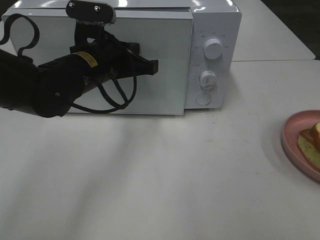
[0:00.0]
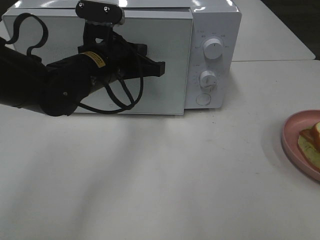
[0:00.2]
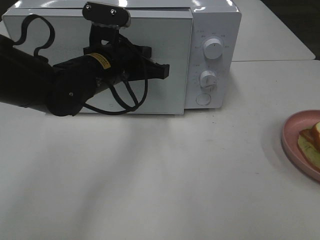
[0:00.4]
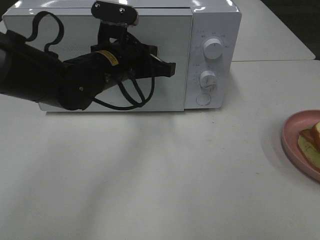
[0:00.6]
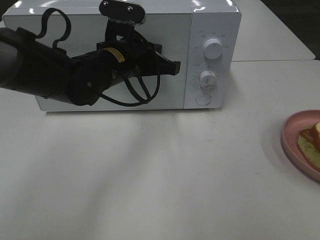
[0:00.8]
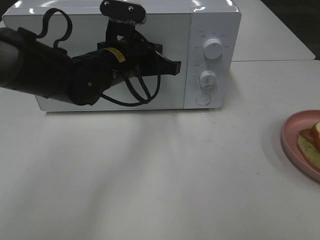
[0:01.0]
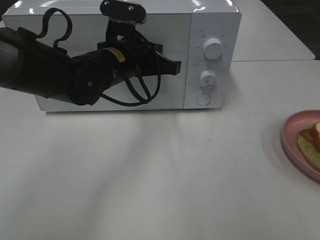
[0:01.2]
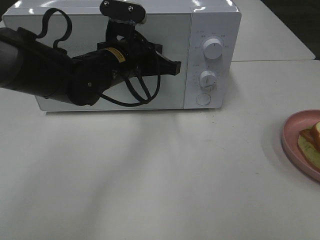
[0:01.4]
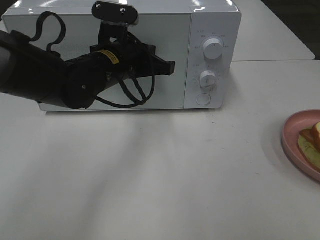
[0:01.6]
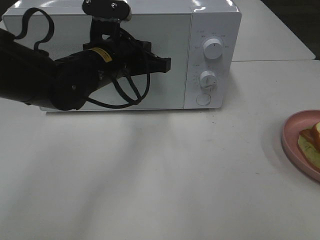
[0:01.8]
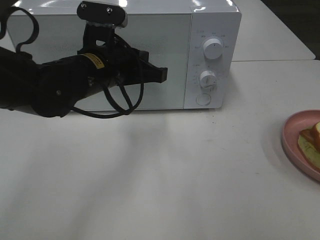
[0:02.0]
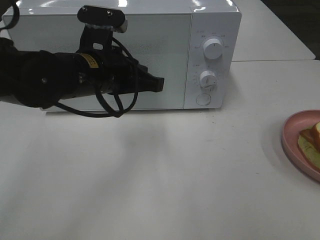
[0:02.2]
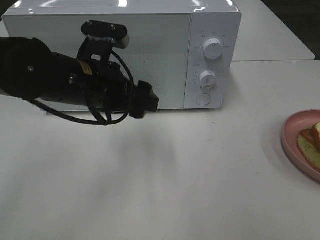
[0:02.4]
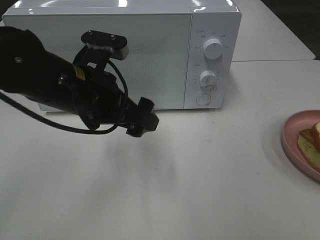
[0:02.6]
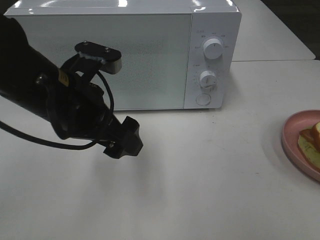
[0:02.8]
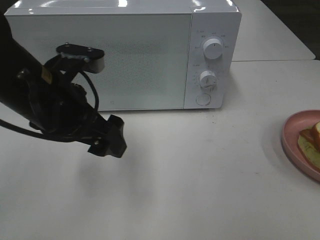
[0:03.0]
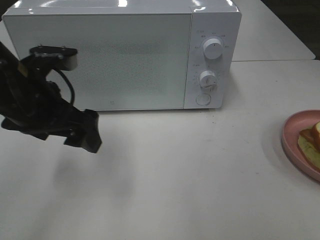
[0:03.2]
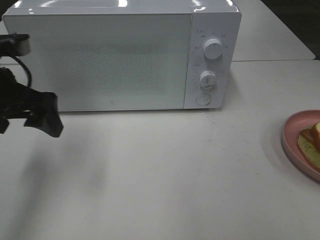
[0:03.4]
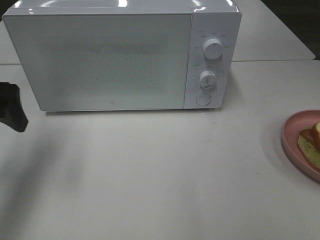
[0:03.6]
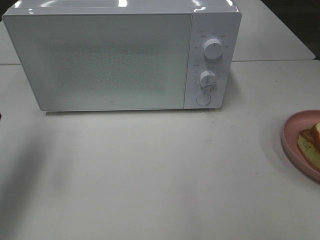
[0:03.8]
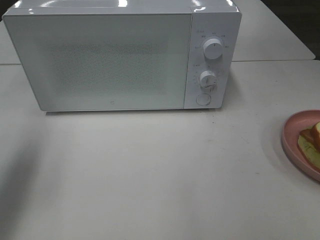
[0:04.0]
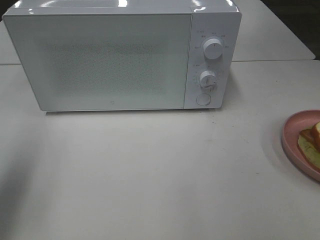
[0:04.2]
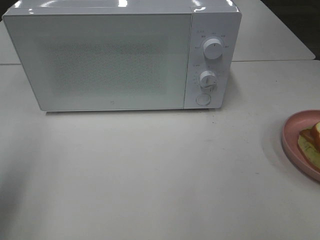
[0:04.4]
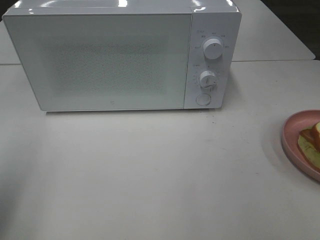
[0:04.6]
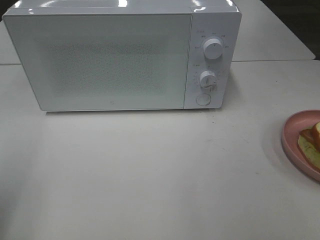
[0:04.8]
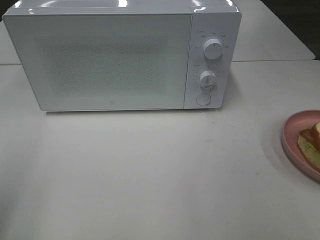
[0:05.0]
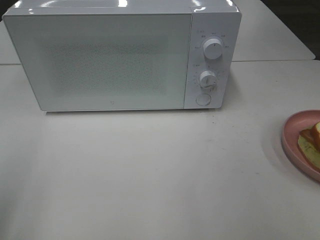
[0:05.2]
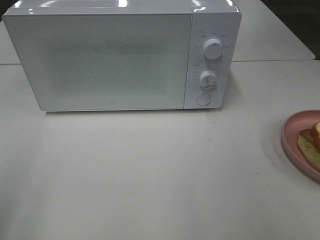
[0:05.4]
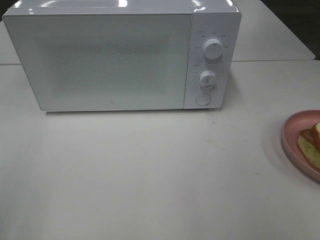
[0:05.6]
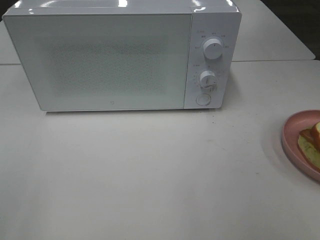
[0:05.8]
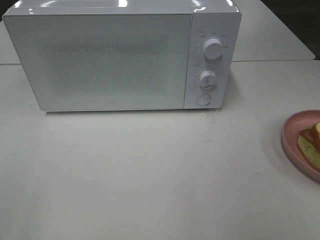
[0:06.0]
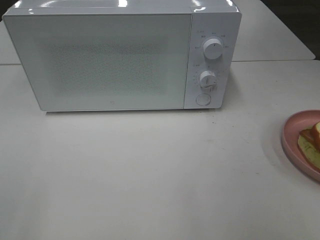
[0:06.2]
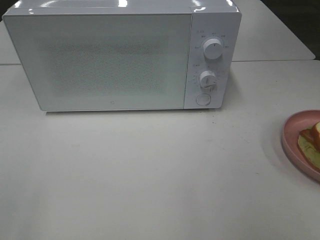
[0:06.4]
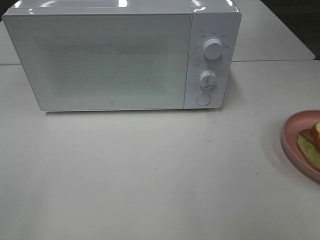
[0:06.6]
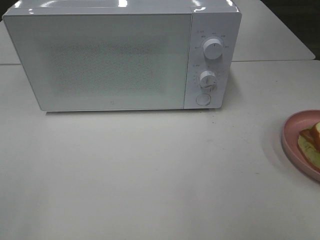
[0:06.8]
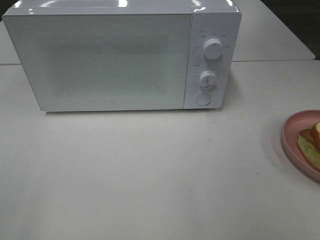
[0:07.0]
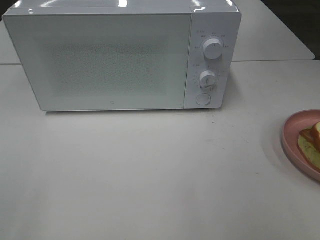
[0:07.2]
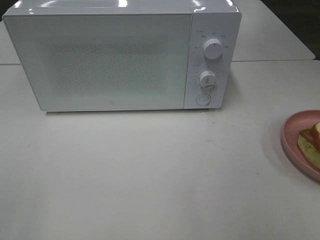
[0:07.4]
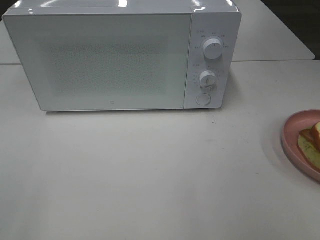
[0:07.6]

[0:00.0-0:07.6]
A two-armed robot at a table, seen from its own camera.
Task of the whole recording: Heat Sandwich.
Step, 0:00.0 to 0:02.0: Left hand: close the microwave door.
0:00.0 to 0:01.6: The grippers move only a little.
0:01.6 to 0:03.0: The left gripper moves backward and to the left, about 10 cm, and opens up.
0:03.0 to 0:04.6: The left gripper moves to the left and backward, some 20 cm.
0:04.6 to 0:06.0: The left gripper goes some 10 cm backward.
0:06.0 to 0:07.6: The two grippers keep their place.

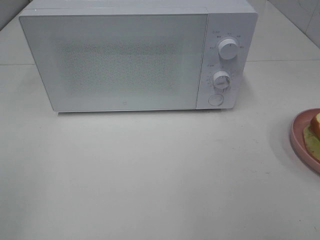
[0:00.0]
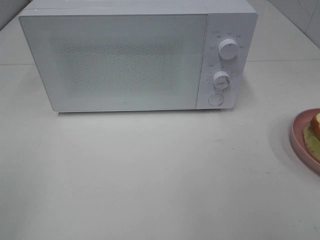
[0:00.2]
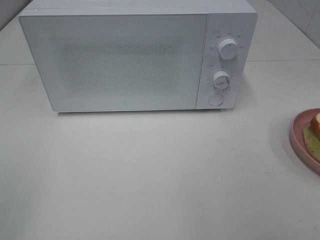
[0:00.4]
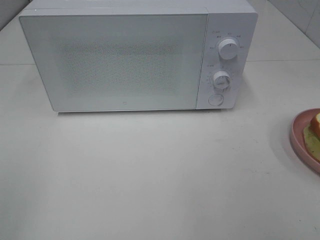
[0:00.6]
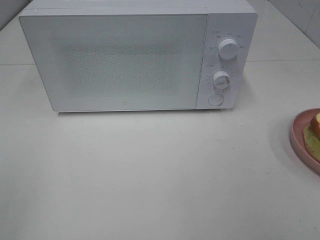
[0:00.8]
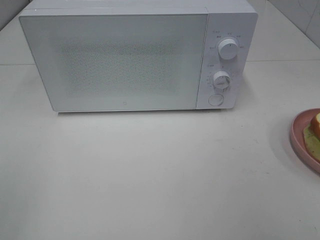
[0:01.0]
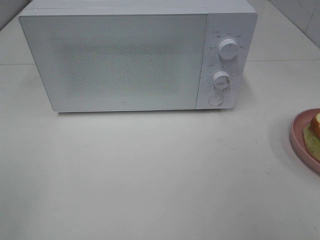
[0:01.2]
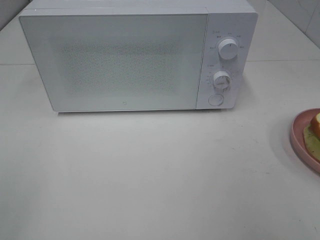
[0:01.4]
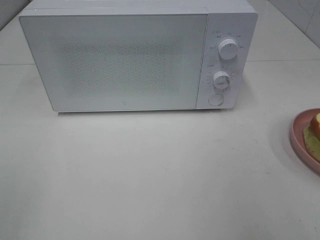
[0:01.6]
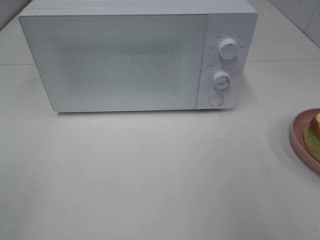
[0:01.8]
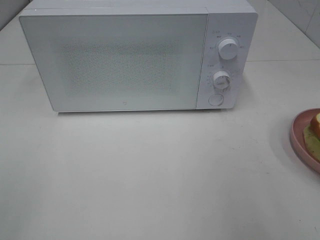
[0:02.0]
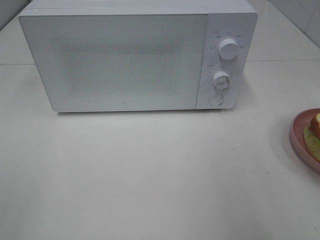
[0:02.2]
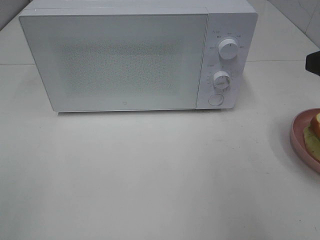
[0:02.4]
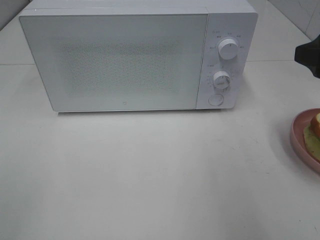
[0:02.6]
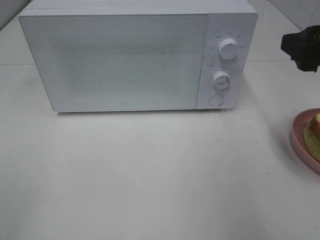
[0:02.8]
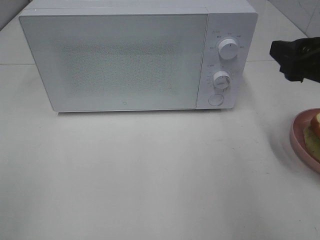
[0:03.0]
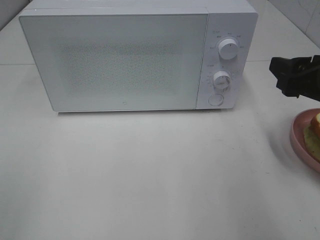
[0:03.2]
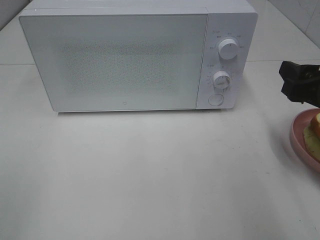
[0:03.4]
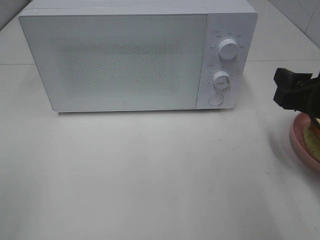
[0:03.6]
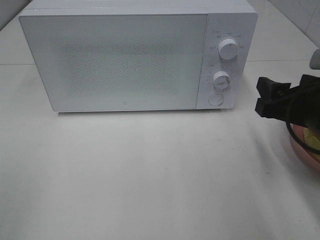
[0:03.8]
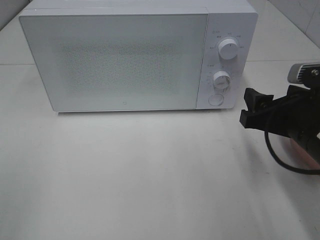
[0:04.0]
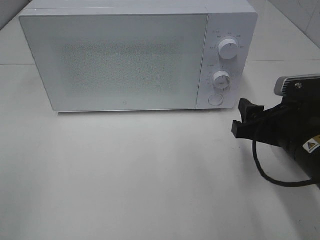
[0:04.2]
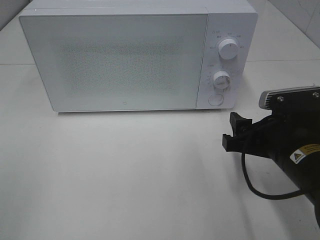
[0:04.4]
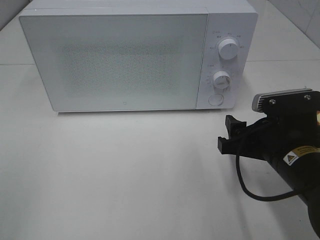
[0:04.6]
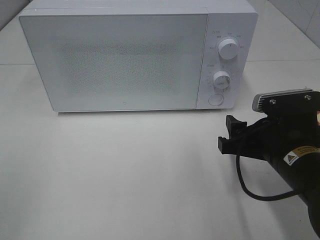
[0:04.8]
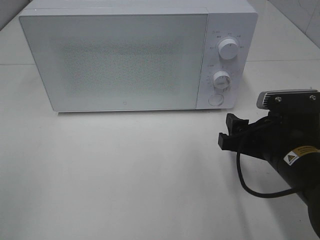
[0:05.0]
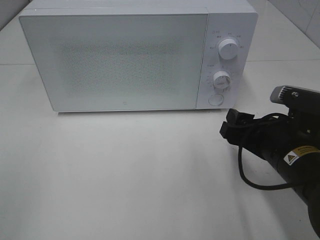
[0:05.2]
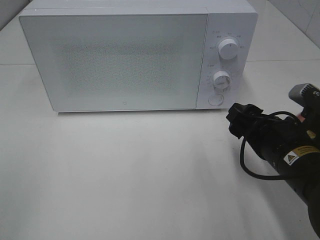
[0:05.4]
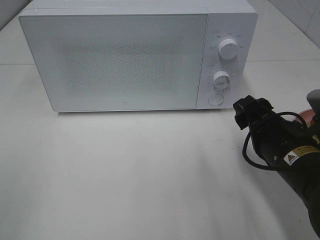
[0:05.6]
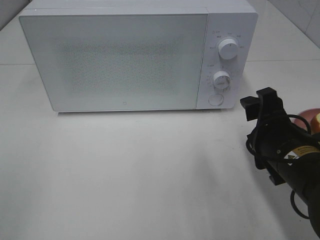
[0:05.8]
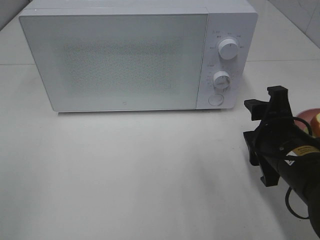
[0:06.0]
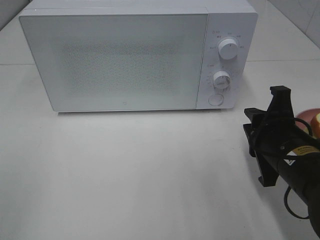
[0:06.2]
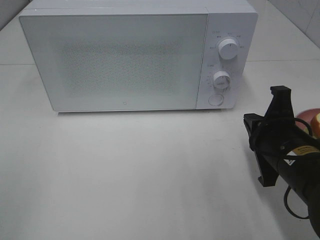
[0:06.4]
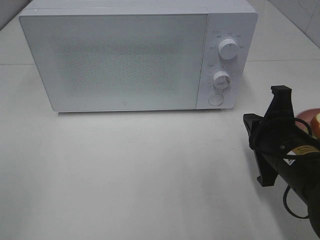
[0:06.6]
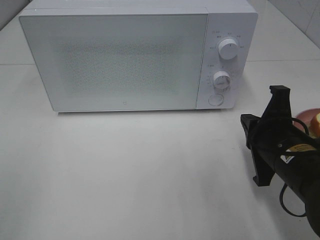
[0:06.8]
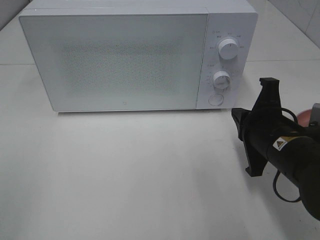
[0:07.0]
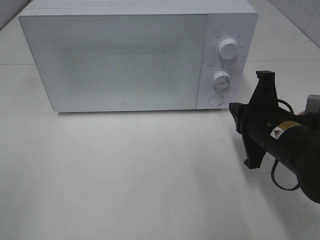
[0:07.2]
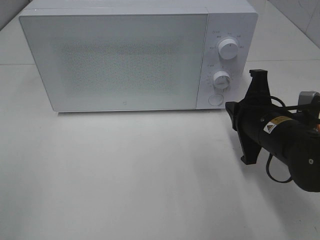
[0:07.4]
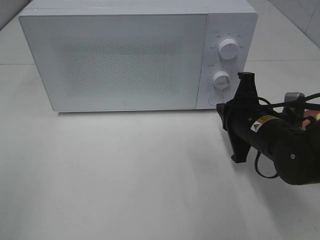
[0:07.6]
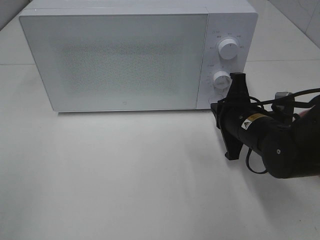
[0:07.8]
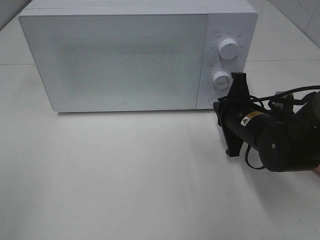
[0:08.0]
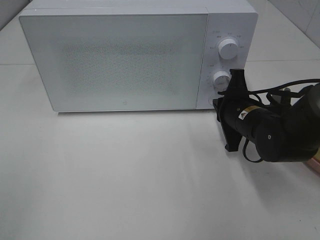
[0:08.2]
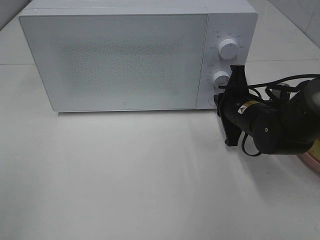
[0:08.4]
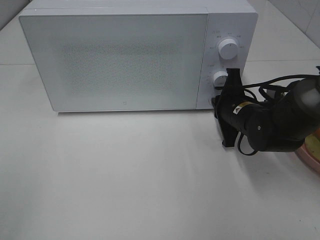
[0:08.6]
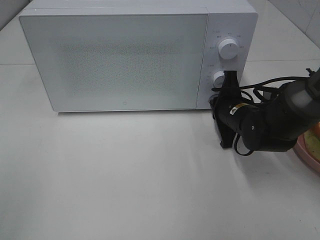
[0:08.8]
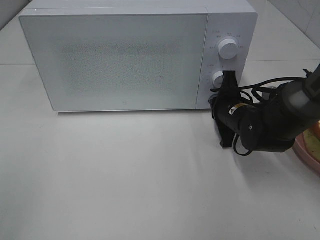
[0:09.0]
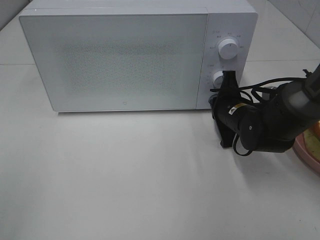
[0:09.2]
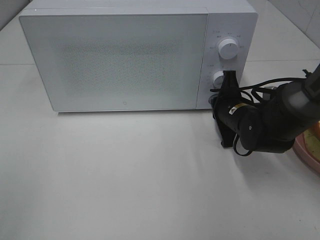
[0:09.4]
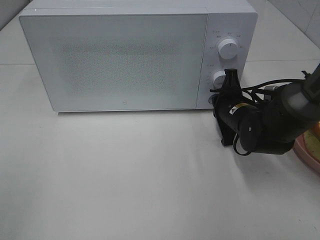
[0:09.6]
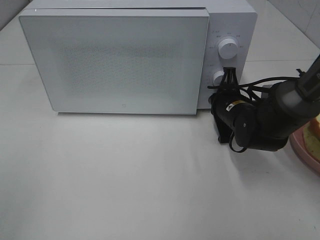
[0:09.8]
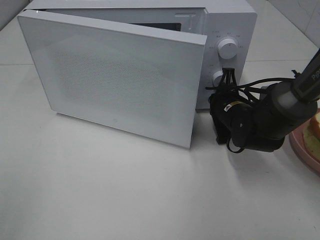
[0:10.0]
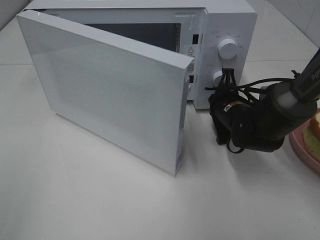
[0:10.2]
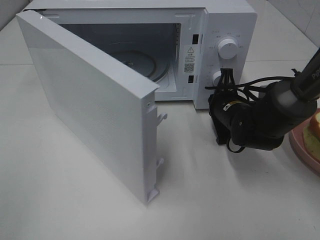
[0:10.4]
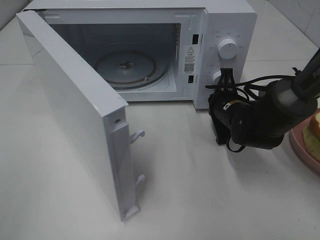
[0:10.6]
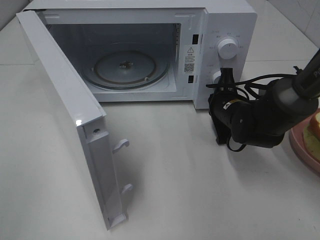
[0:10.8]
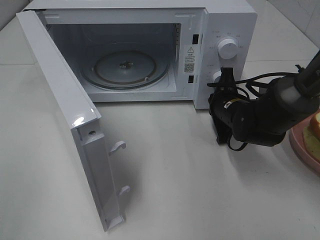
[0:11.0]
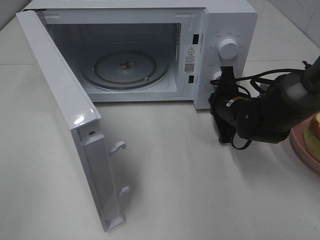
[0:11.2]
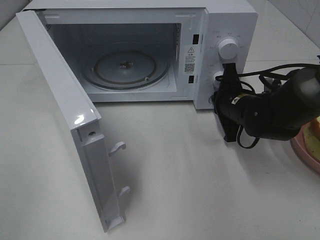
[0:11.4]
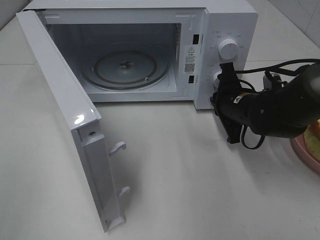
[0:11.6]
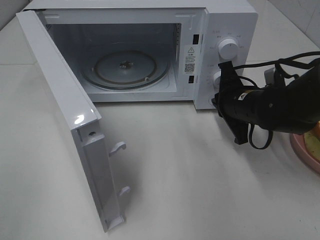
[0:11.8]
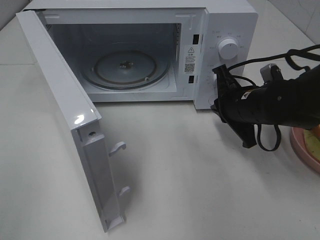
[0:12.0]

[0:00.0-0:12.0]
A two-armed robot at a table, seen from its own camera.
Task of the whole recording: Heat Sandwich.
Step, 0:00.0 to 0:11.8: Right hand: press the switch.
0:01.6 to 0:03.0: The right gripper shifts some 15 cm forward and downward.
0:03.0 to 0:04.4: The right gripper heads downward and to the left, covering approximately 10 cm.
0:06.0 to 0:07.6: The right gripper shifts approximately 5 cm forward, and closes up.
0:07.6 to 0:09.0: The right gripper shifts approximately 10 cm forward.
0:10.4 to 0:12.0: The right gripper ends up roughly 5 cm from where it was.

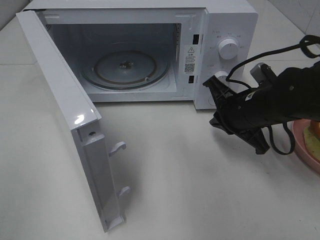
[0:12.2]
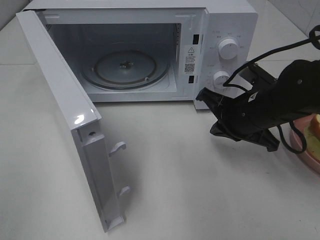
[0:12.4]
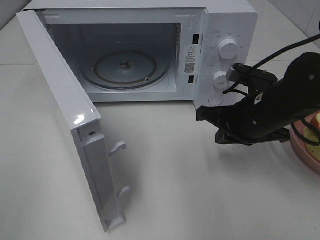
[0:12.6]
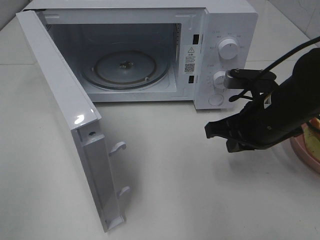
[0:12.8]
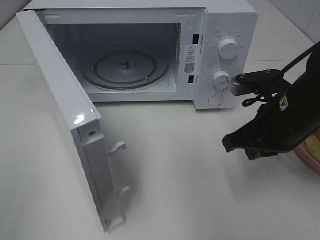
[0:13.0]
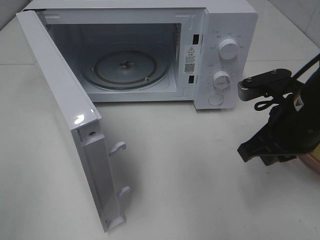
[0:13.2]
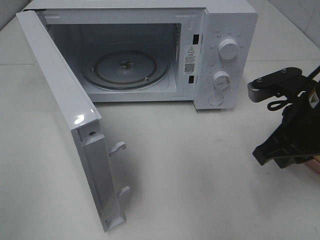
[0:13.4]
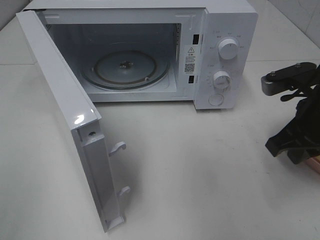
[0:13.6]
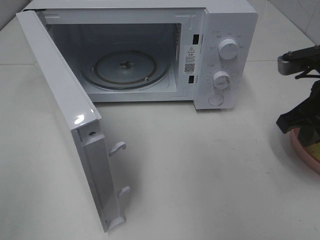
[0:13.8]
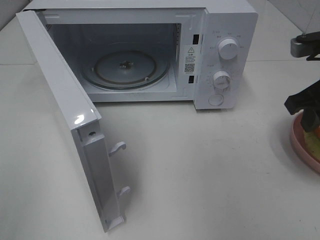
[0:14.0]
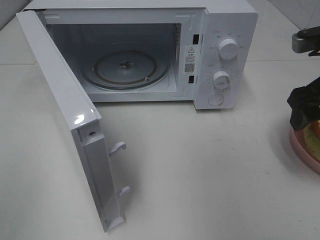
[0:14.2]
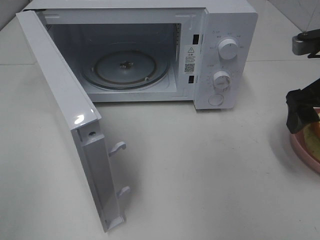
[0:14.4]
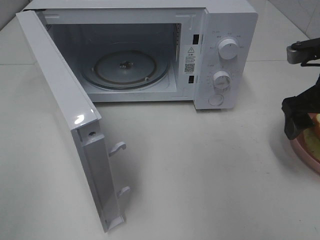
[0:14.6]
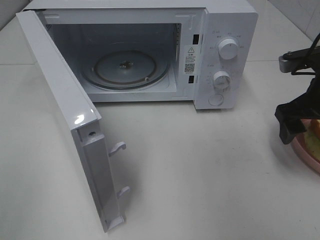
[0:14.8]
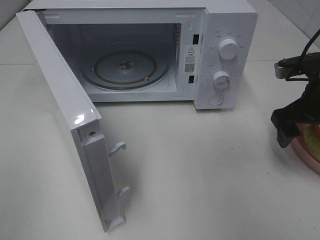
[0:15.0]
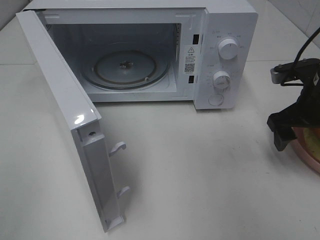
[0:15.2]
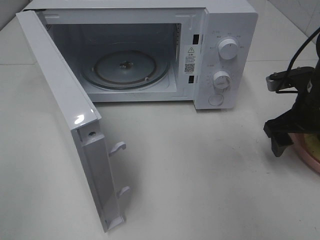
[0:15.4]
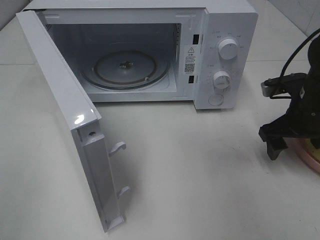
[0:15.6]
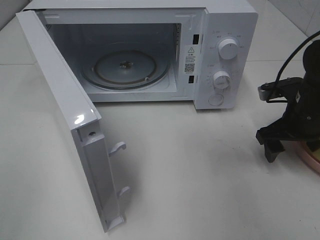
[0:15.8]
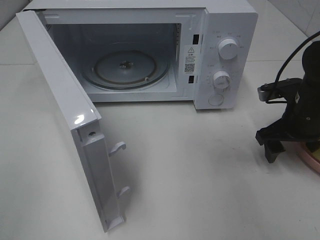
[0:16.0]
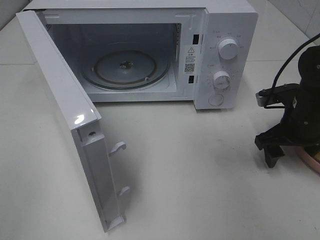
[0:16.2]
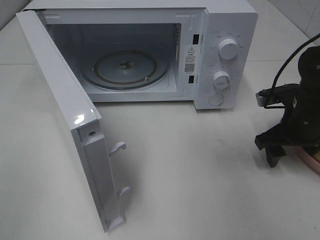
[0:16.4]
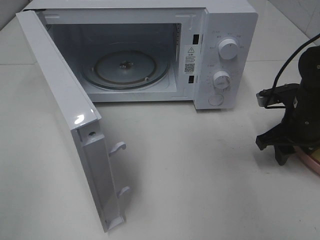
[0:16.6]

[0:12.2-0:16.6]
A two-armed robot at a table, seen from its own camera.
Task of the whole recording: Heat Sandwich.
0:12.2 to 0:13.6: The right gripper travels upward, backward and to the right by roughly 10 cm.
0:13.6 to 0:15.2: The right gripper moves forward, approximately 5 cm, and opens.
0:15.2 to 0:16.6: The right gripper moves downward, approximately 5 cm, and closes its fingers.
